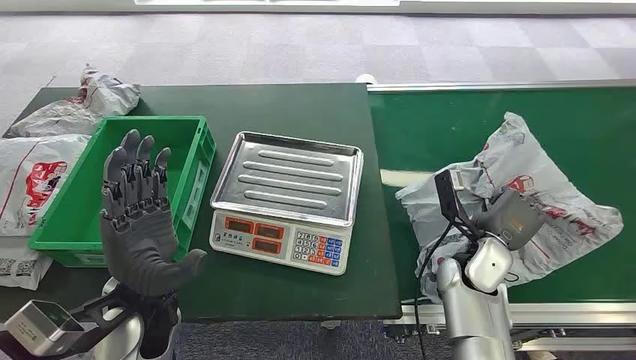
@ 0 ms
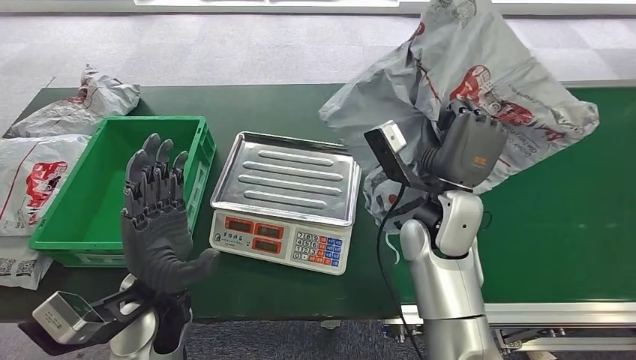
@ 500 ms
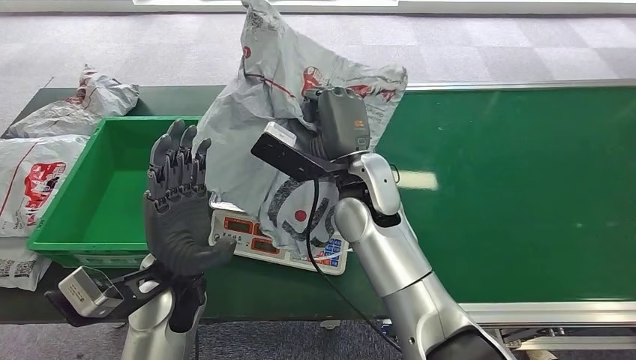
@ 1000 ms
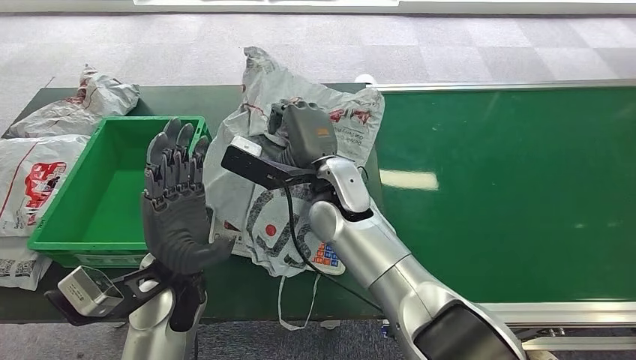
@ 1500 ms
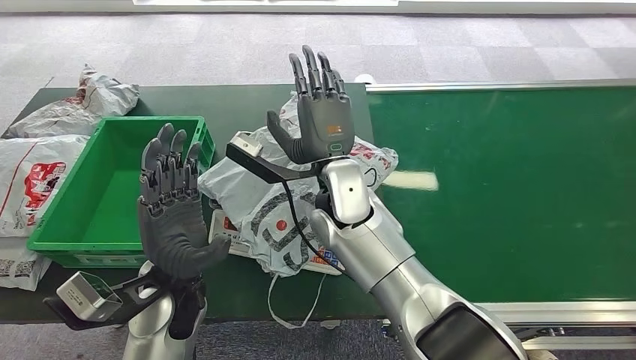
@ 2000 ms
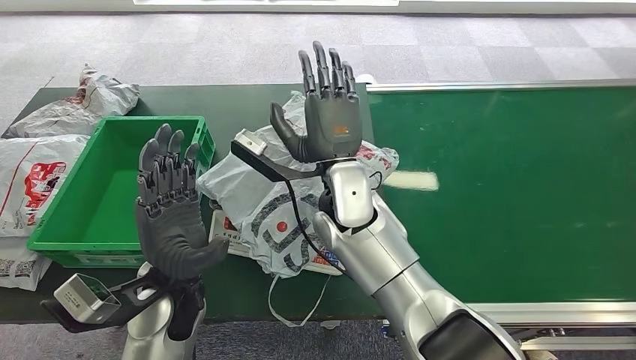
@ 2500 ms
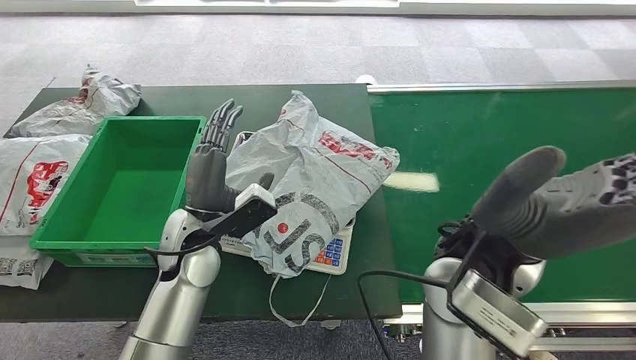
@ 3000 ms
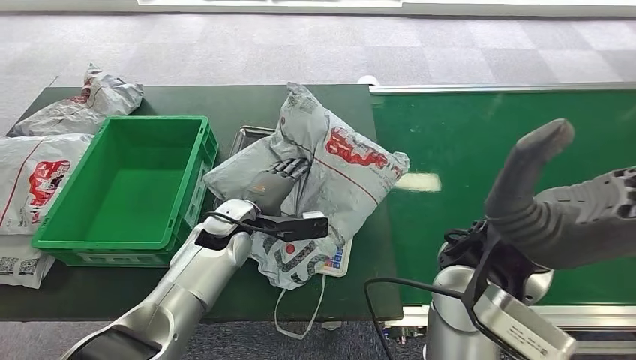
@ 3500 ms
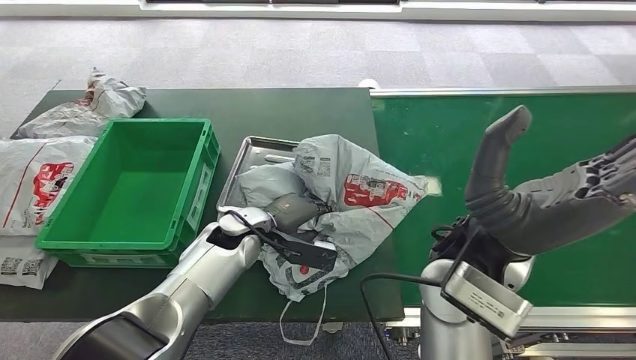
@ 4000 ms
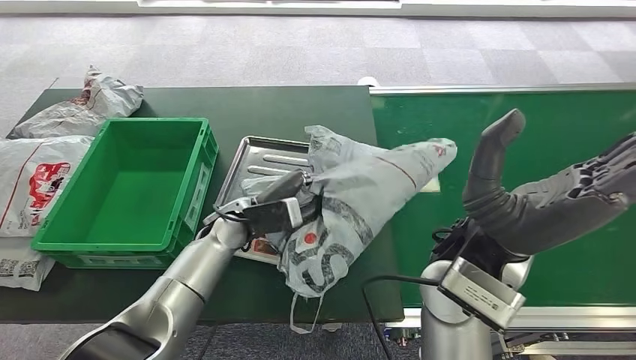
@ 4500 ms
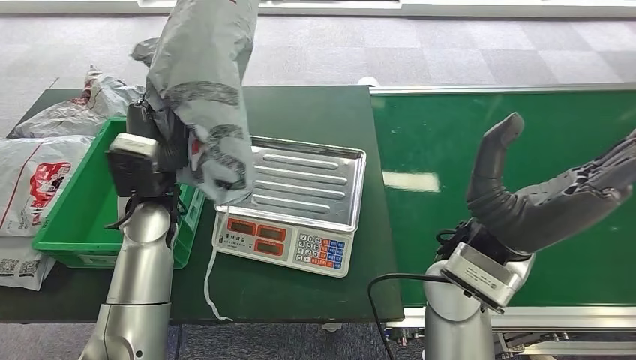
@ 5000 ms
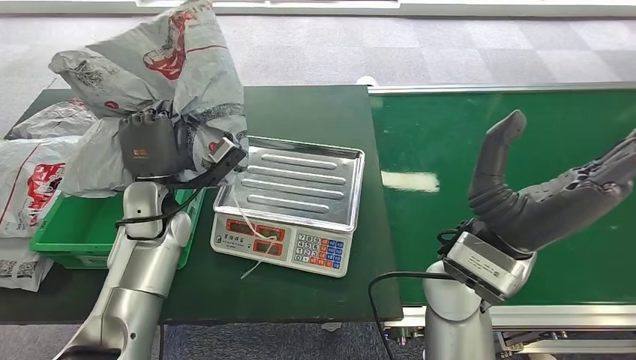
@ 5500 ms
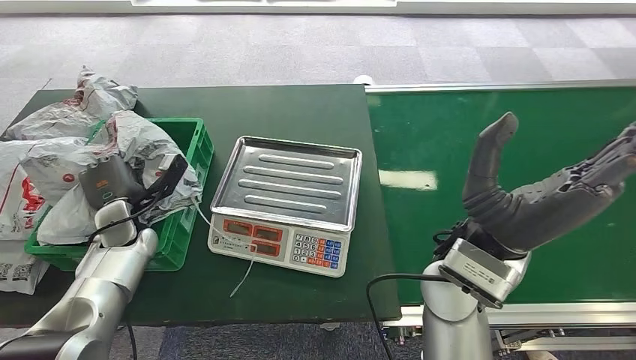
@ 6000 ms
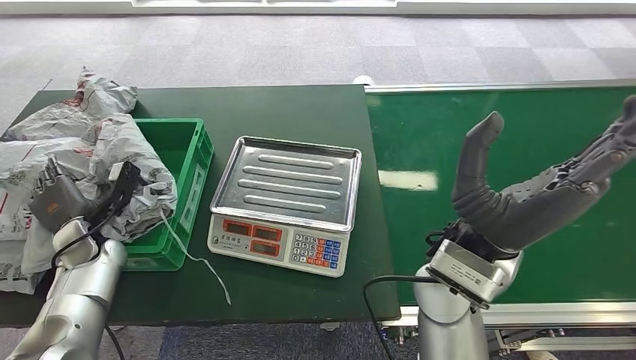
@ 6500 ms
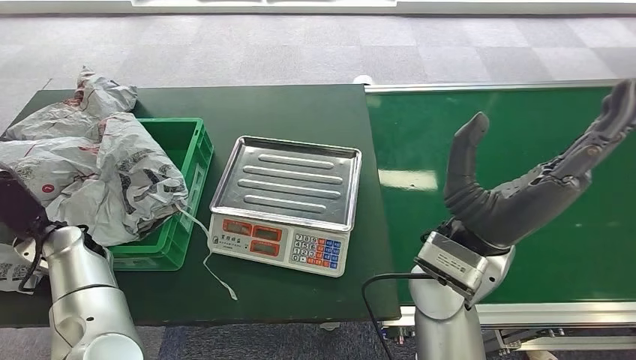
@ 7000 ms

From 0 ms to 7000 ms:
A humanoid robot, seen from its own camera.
Step, from 0 ms to 1000 ms: Pick up the package from the conveyor belt.
Step, from 1500 ms to 3000 ms: Place the package onto the inbound machine.
Step, from 3500 ms to 5000 ms: Pick up the package from the inbound machine.
Step, from 5500 ms to 7000 ms: Place the package into the parcel locker.

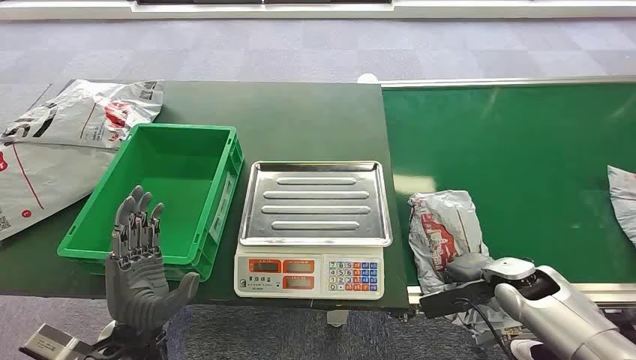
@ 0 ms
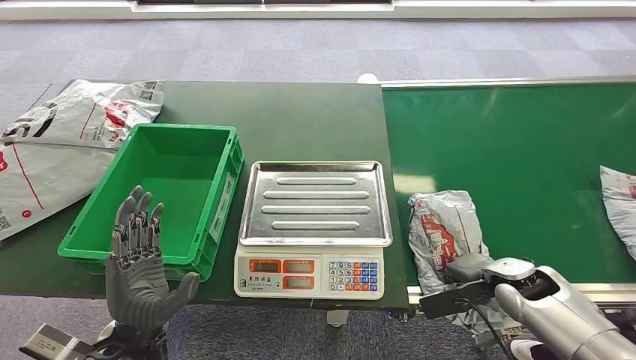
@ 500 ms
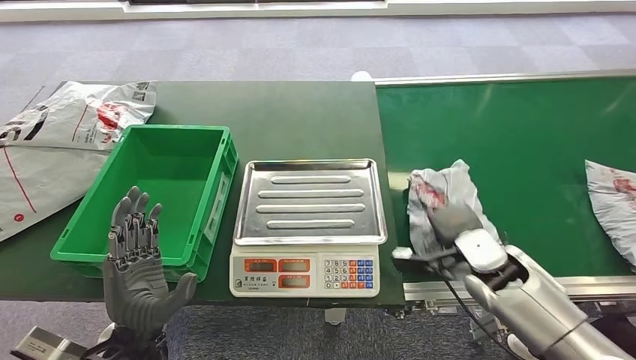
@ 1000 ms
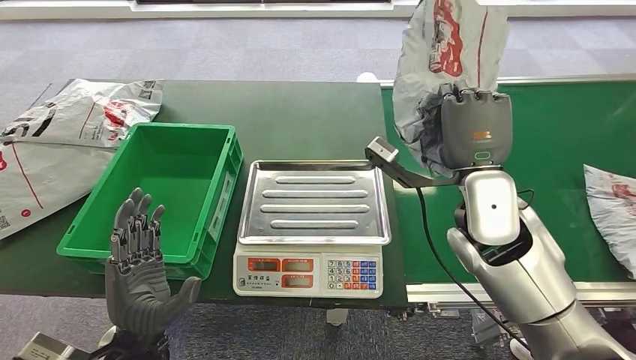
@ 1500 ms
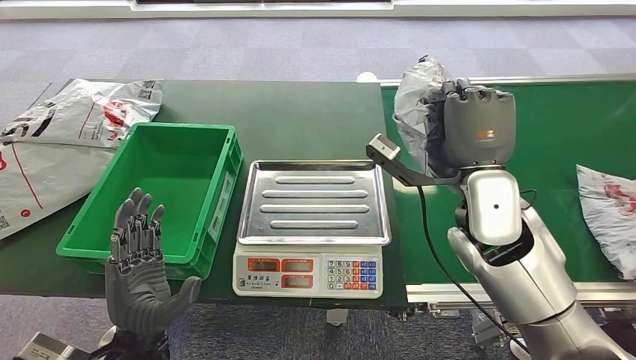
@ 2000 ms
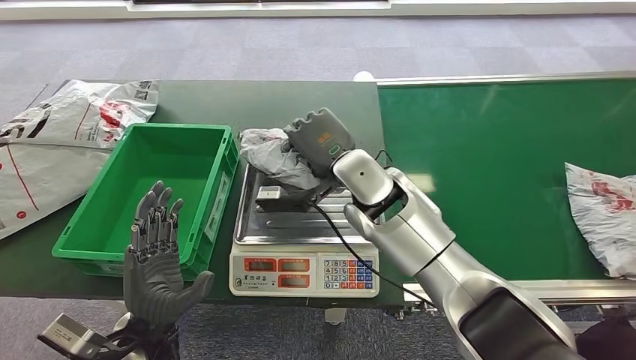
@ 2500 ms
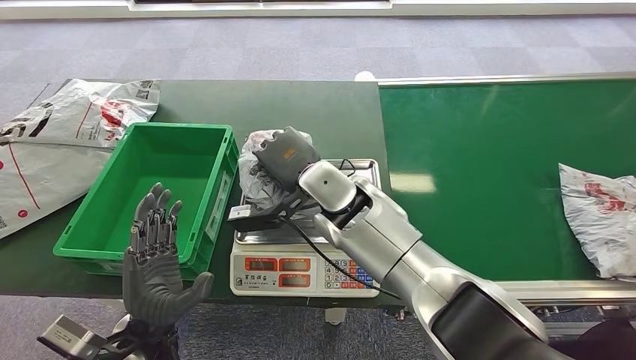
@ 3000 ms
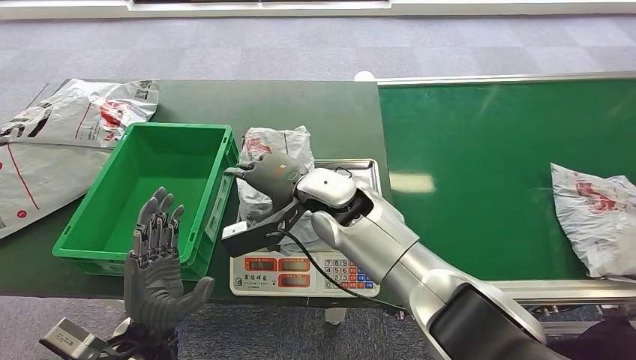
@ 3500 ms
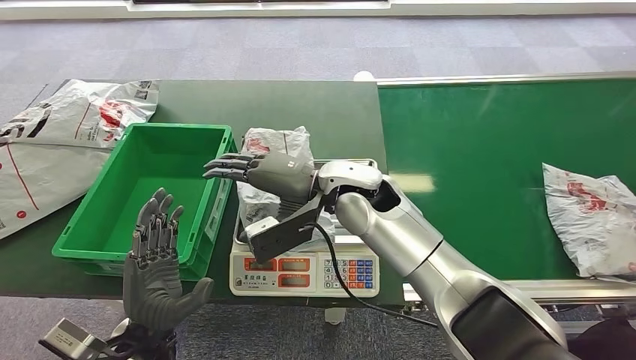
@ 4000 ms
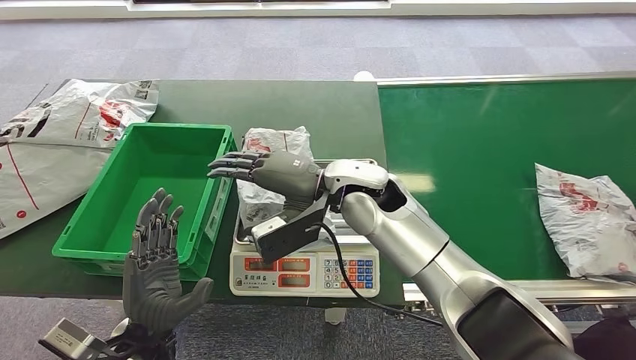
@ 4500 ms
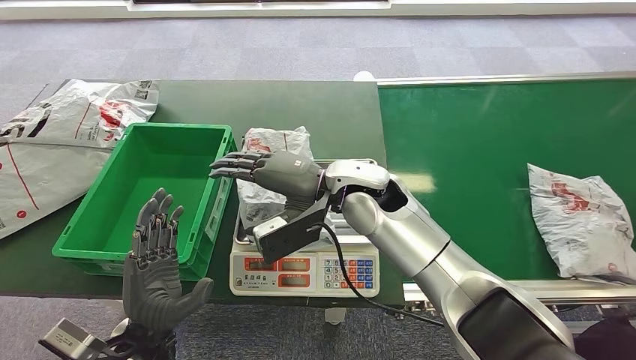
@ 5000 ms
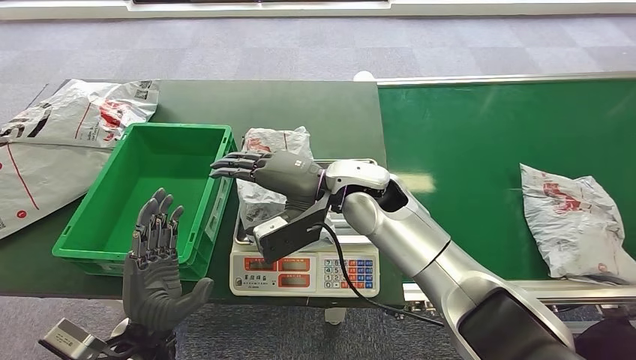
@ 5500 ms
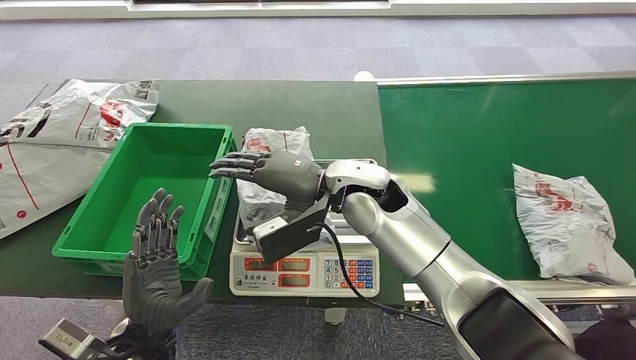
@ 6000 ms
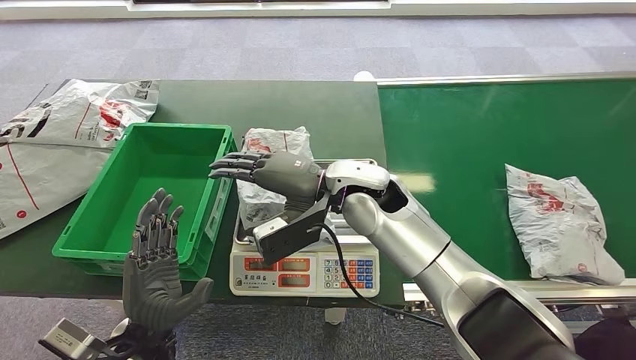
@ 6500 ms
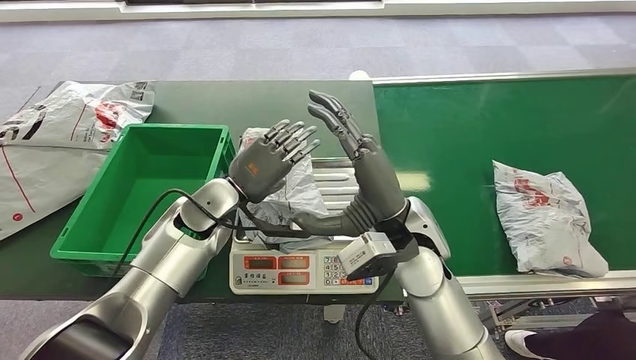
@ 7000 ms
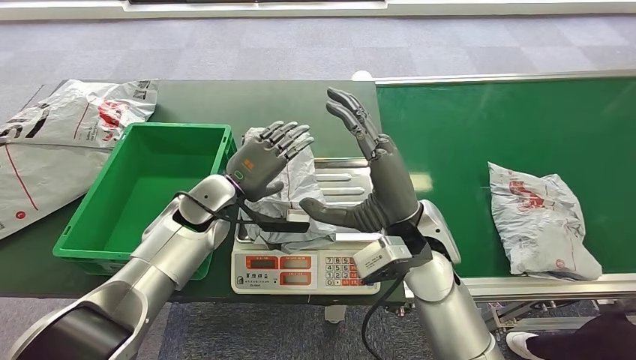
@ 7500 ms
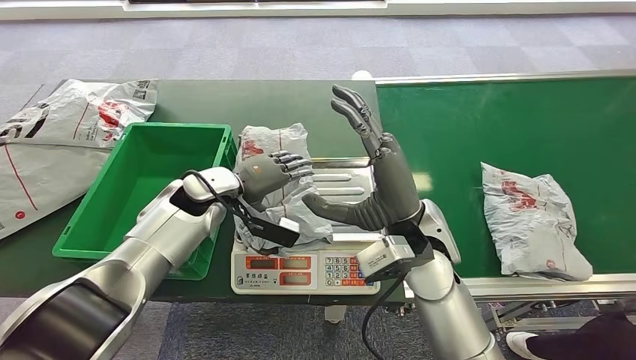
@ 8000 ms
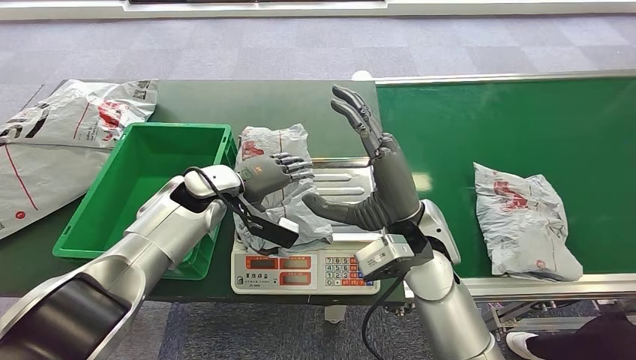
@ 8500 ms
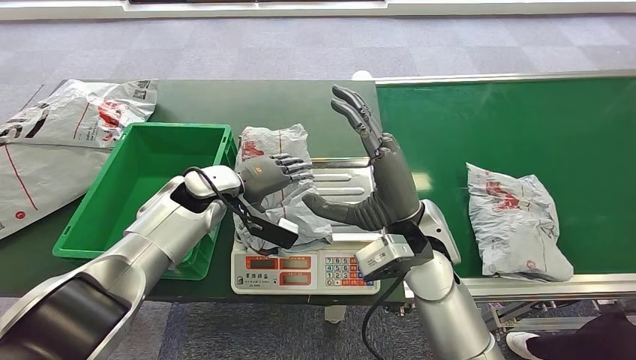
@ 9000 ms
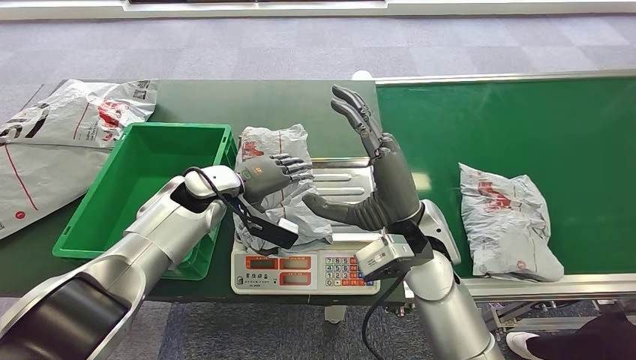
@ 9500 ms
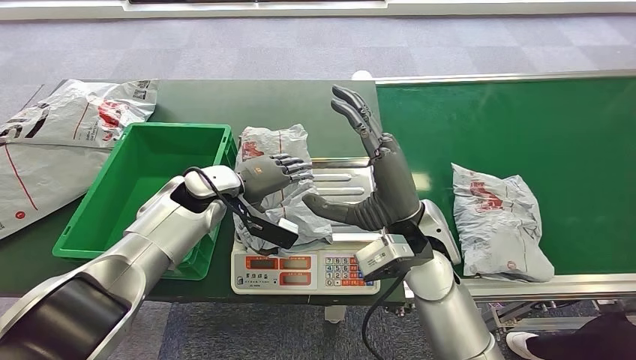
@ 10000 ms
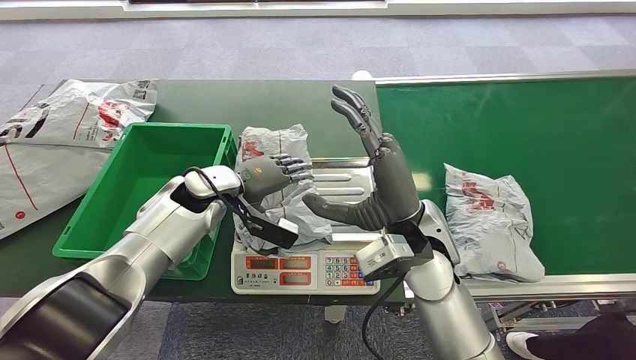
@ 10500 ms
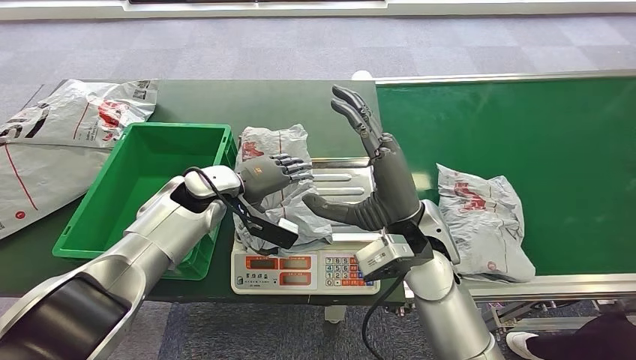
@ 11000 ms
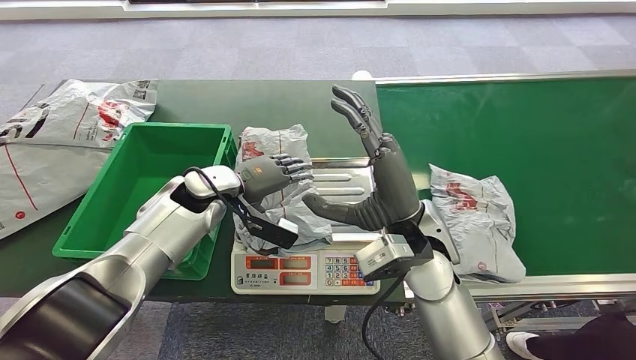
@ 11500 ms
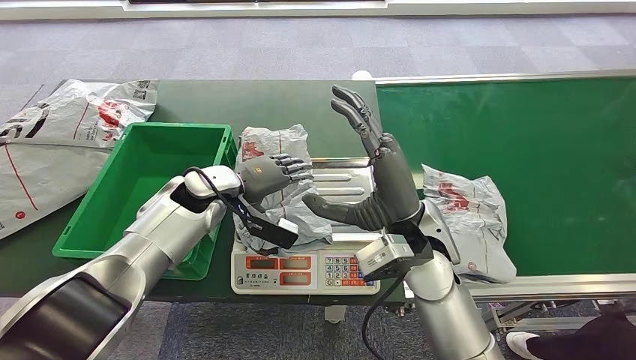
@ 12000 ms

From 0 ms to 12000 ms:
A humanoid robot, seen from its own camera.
Step, from 0 ms to 2000 ms: Pick up the package from the conveyor belt.
Step, from 2500 ms to 4500 ms: Place the package onto the inbound machine.
From 4000 ms to 6000 ms: Both hands stay put.
From 8000 ms to 12000 ms: Both hands stay put.

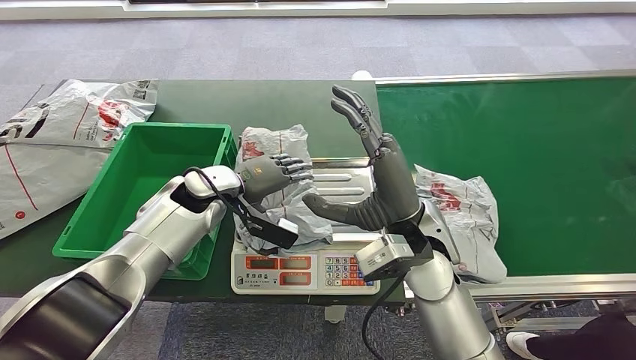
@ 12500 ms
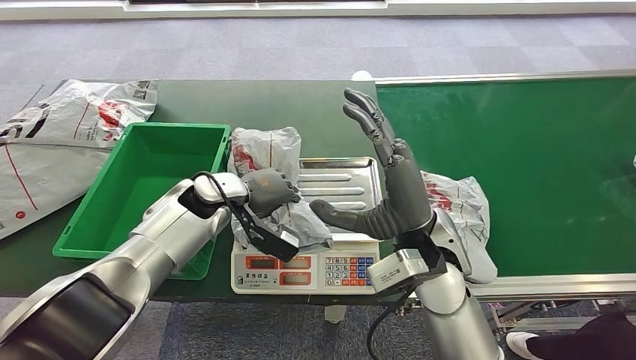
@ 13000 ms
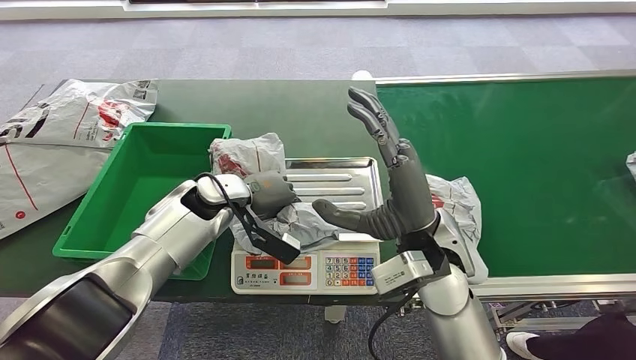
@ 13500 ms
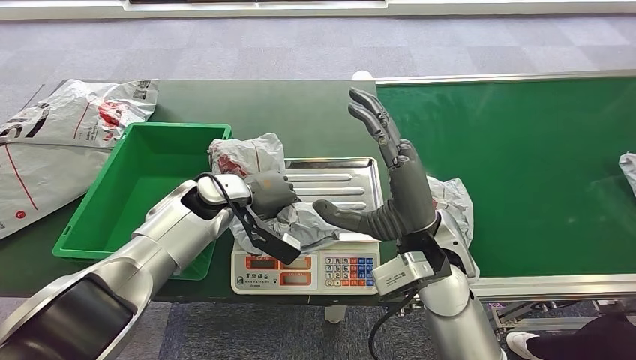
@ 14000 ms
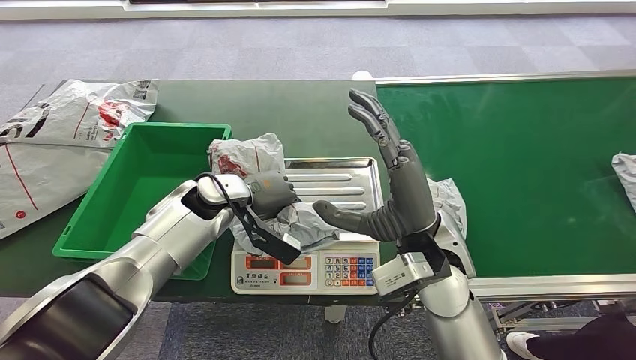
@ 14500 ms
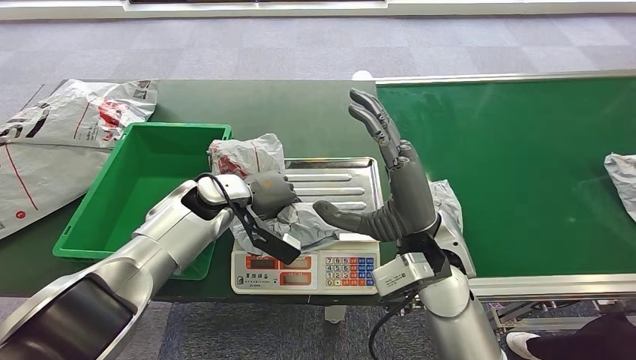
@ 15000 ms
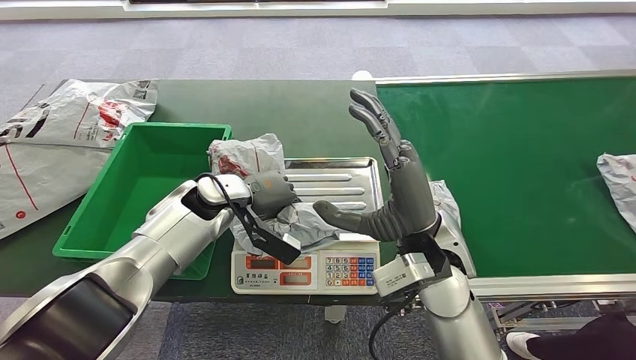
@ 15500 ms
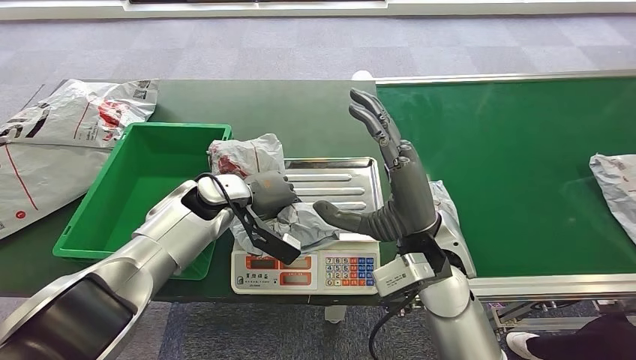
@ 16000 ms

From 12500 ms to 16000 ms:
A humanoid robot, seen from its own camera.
From 12500 ms to 14500 ms: There are only small adjustments of the hands.
From 14500 ms to 16000 ms: The two hands keep their place.
